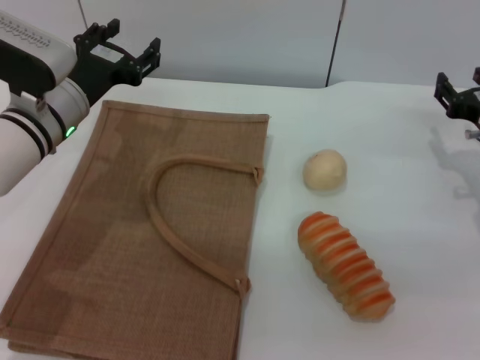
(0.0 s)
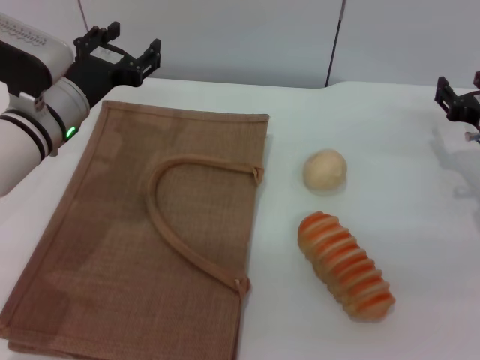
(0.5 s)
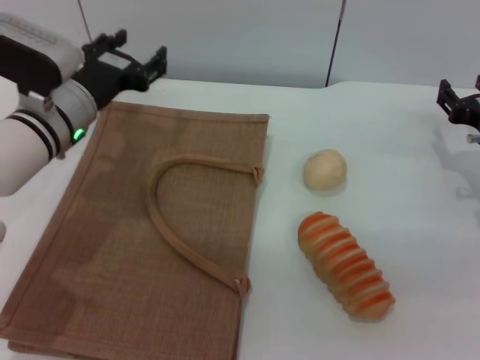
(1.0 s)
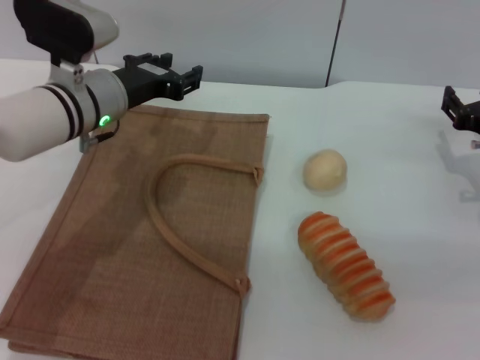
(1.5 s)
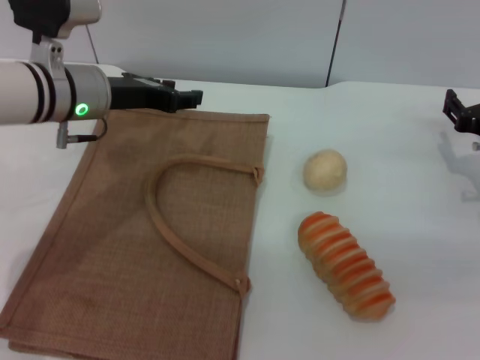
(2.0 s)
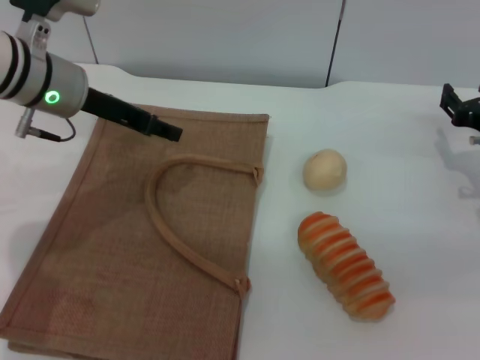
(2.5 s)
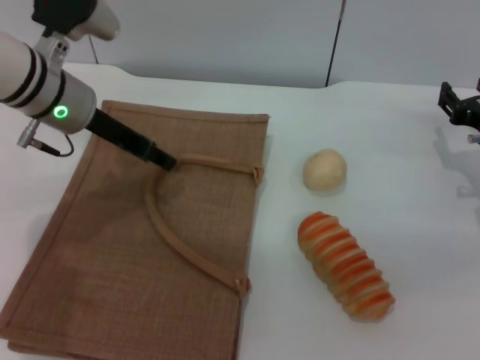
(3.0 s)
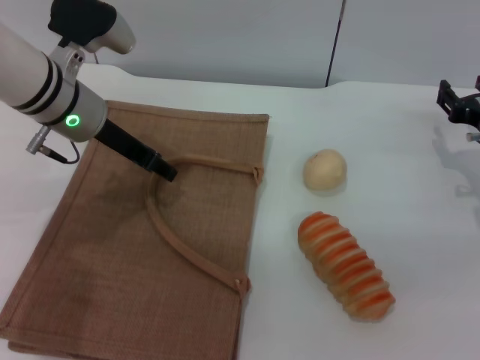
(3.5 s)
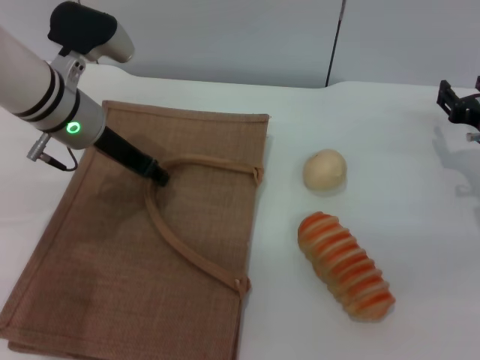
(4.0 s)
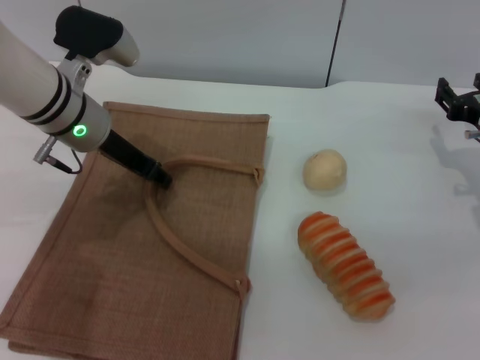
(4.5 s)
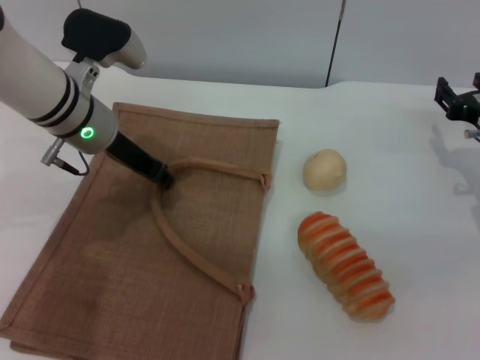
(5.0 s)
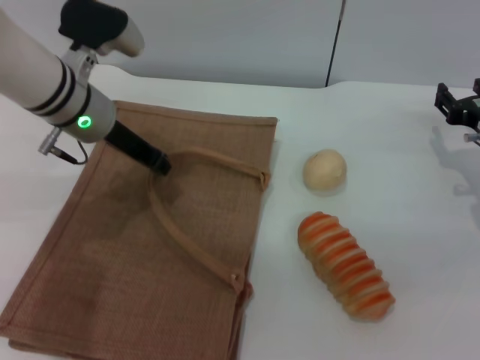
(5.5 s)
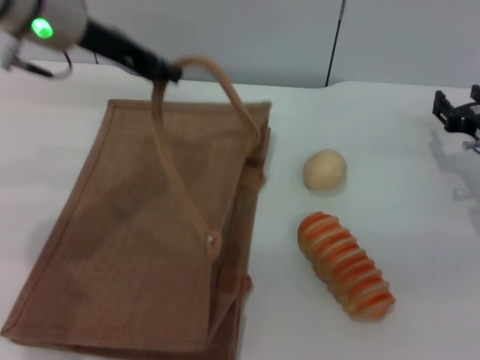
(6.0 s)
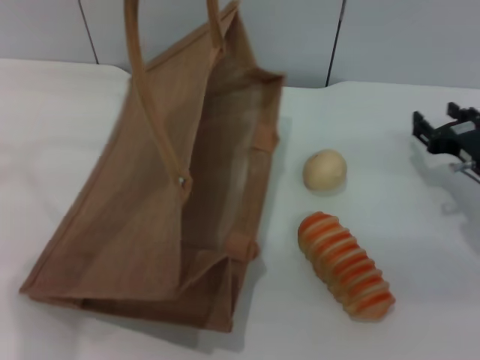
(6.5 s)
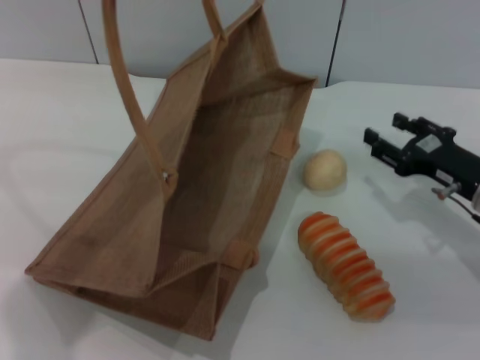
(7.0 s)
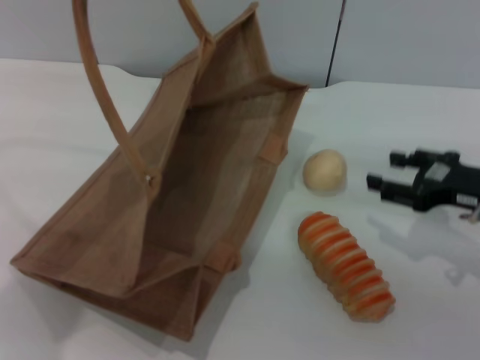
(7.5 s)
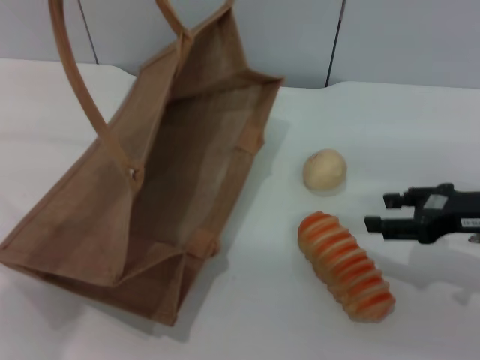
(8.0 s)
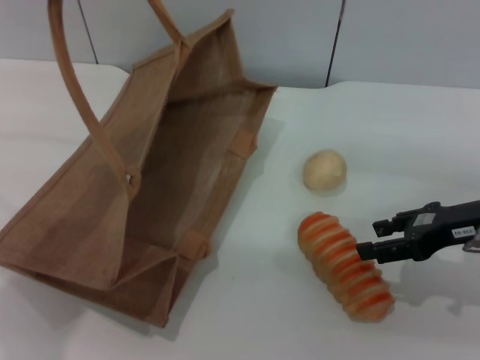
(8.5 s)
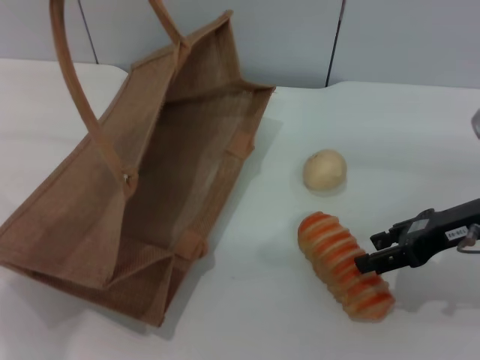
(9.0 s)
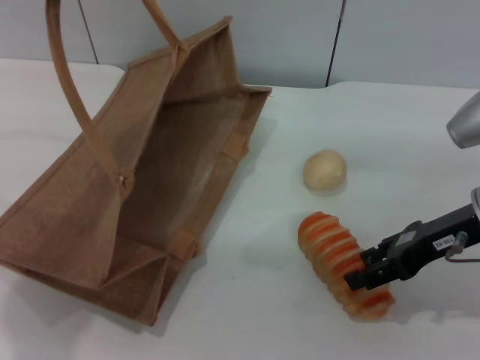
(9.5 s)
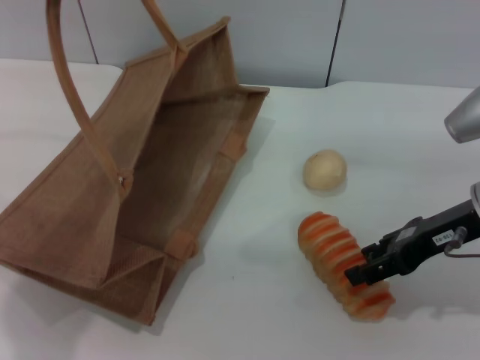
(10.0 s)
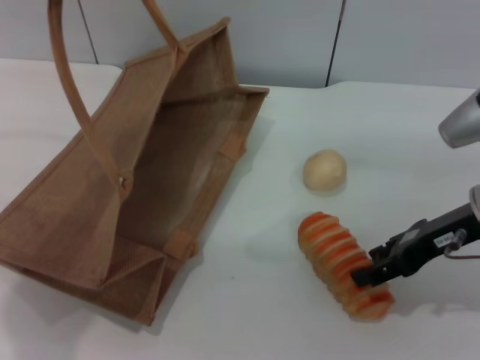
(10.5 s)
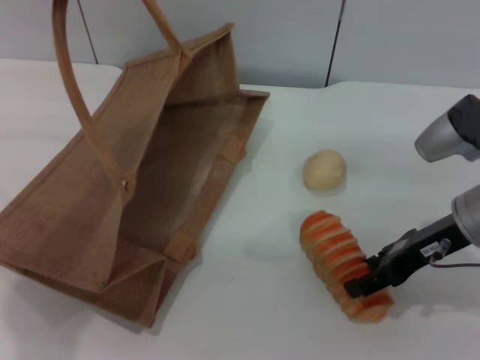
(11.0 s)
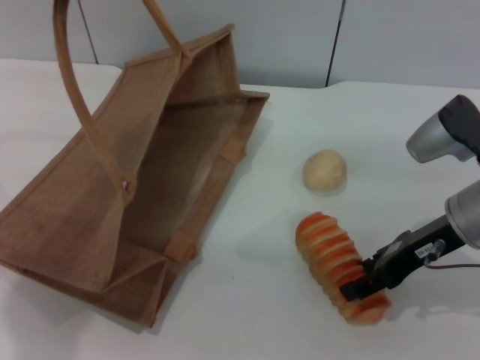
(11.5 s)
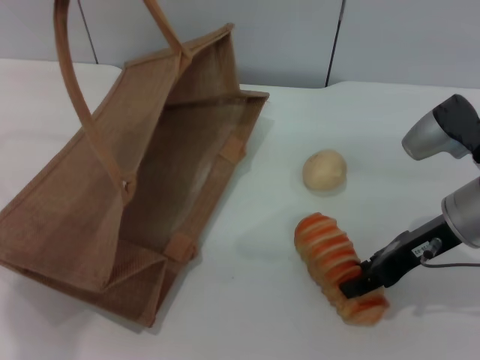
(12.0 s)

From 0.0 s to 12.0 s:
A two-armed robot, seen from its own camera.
Task of the whole recording: pick up the bread and egg yolk pastry from the table and place it in the brown handbag.
Step, from 0.0 s to 6.0 s: Lift the woven bag with the left gripper to open it.
From 4.0 s to 6.0 s: The left gripper heads upward, covering about 10 cm, and closes.
From 6.0 s to 8.0 s: The right gripper moves backward and upward, some 10 cm. Meanwhile the left gripper is displaced upward and backward by some 15 cm.
From 8.0 s to 10.0 s: The right gripper goes roughly 5 cm to the left.
From 10.0 s to 12.0 s: The grippers stay close to where they were, moving slightly.

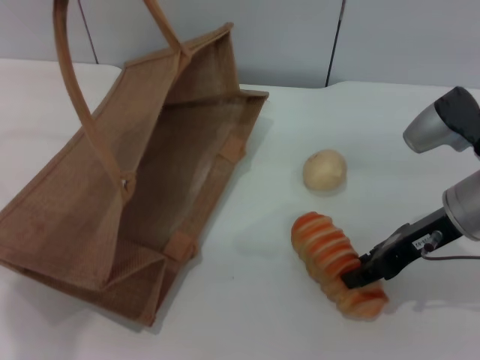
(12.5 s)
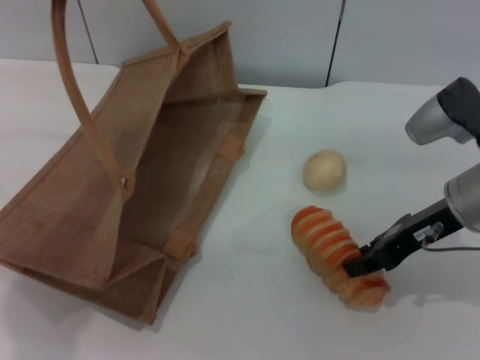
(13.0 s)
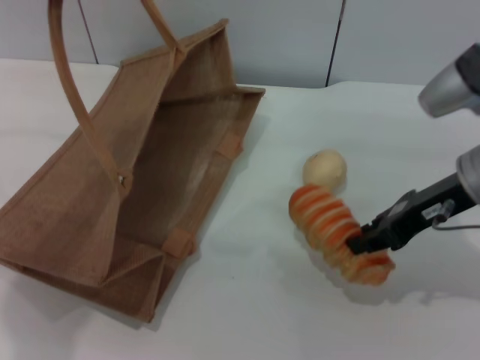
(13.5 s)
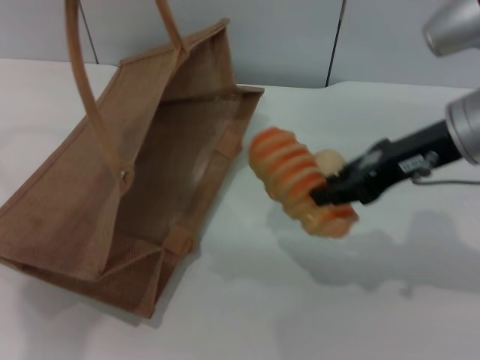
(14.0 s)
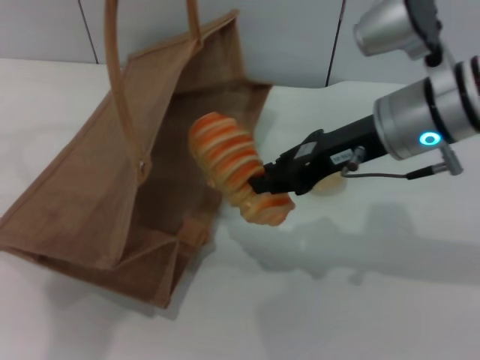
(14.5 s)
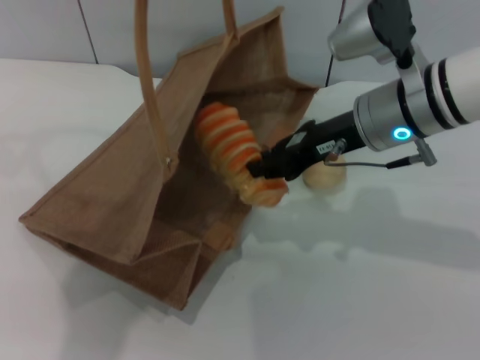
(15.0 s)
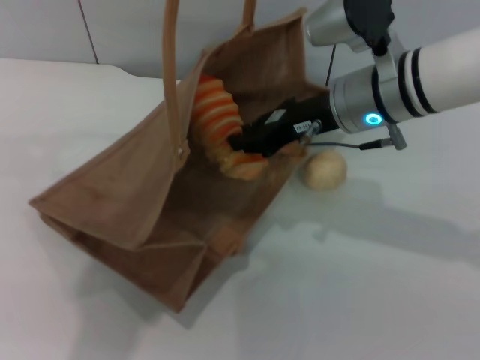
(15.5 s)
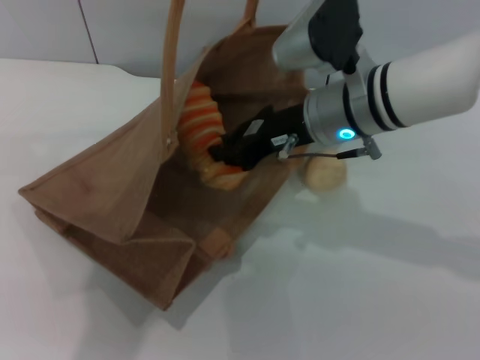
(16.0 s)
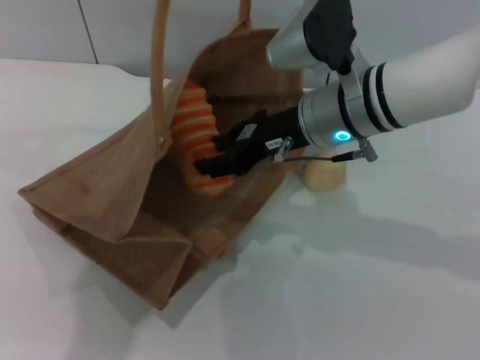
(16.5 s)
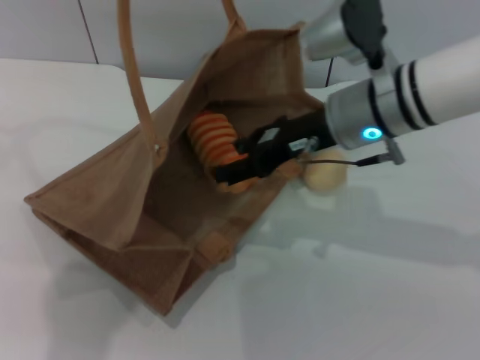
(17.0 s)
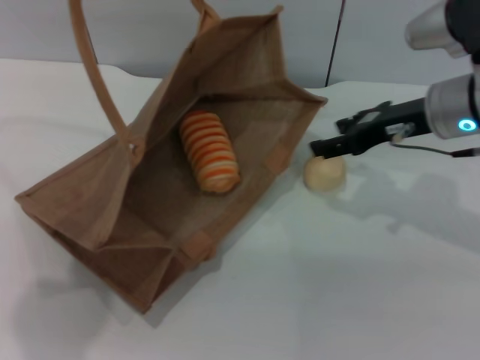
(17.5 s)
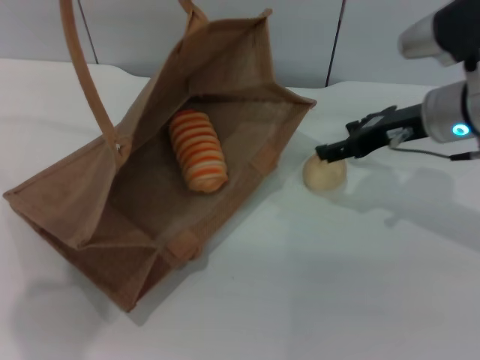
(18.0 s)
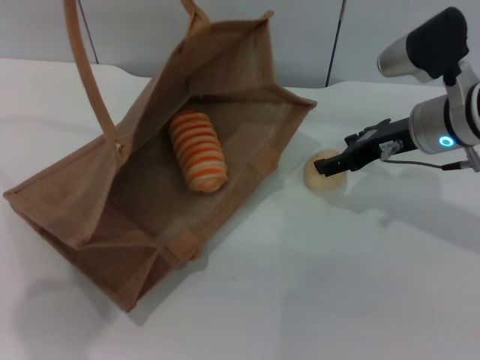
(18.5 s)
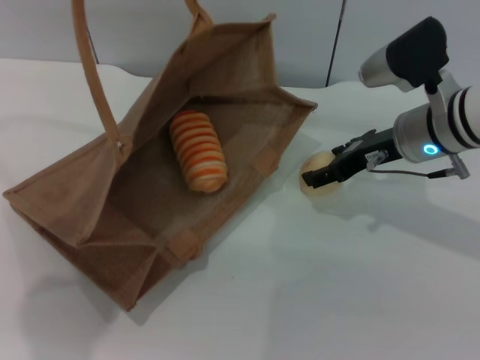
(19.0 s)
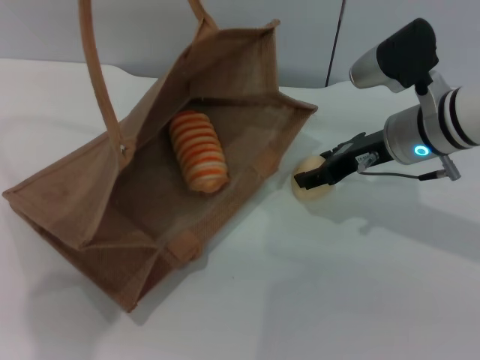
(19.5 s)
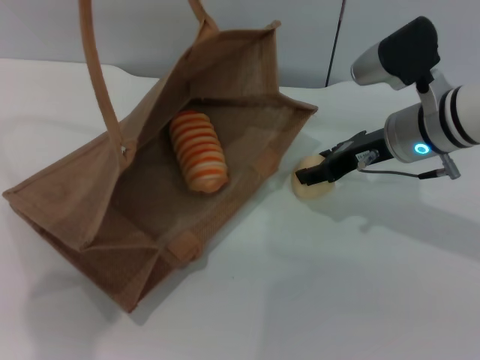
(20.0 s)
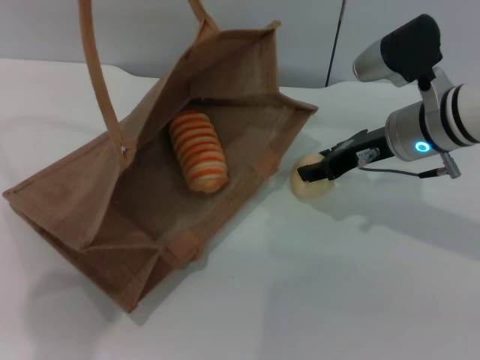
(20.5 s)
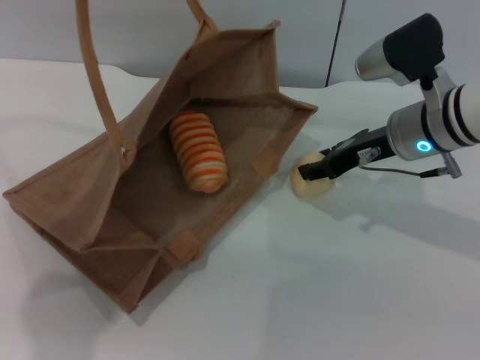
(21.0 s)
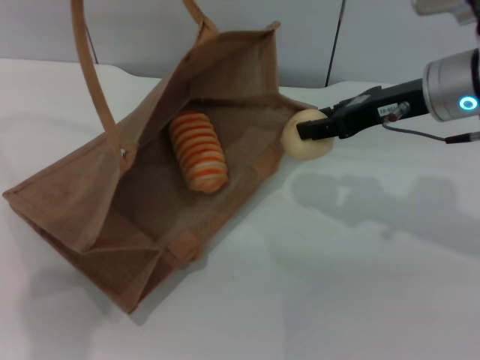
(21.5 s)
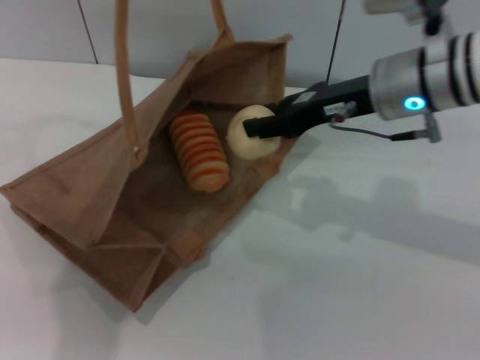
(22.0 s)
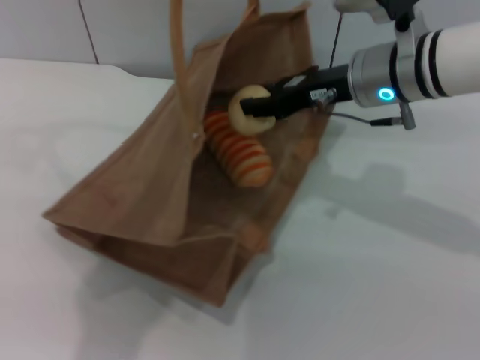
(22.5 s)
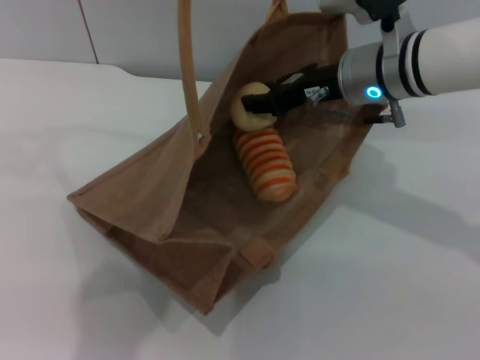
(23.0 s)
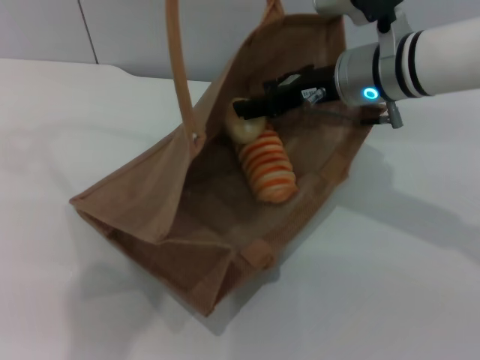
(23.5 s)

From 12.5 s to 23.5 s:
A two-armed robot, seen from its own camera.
Task of the whole recording: pick up the bread and egg yolk pastry from the table and place it in the brown handbag.
Step, from 14.0 s to 17.0 s: Place the bread into the woven bag with the right gripper.
Step, from 17.5 s to 21.0 s: Pick up the egg yolk pastry with the right gripper.
From 12.5 s to 14.5 s: The right gripper is displaced to the left and upward by roughly 10 cm, and closes.
From 14.5 s to 16.0 s: The right gripper shifts about 5 cm to the left. The left gripper moves to the right, about 5 cm.
From 16.0 s to 18.0 s: The left gripper travels to the left by some 10 cm. The right gripper is displaced to the right by approximately 10 cm, and opens up.
From 18.0 s to 20.0 s: The grippers make only small movements.
From 20.0 s to 21.5 s: The right gripper travels upward by approximately 5 cm.
From 21.5 s to 23.5 s: The left gripper moves to the right, about 5 cm; the right gripper moves to the left, roughly 5 cm.

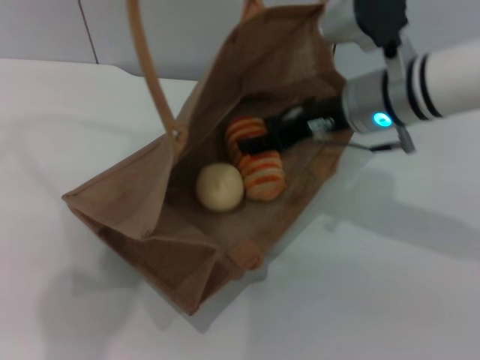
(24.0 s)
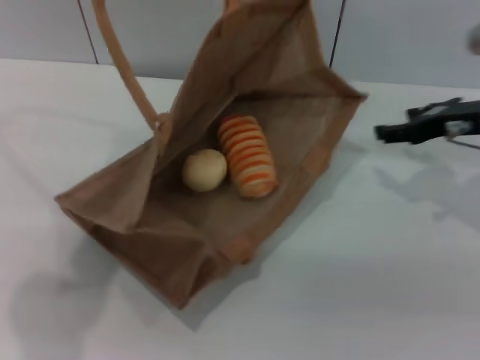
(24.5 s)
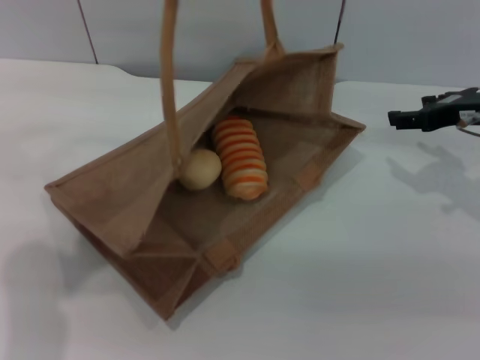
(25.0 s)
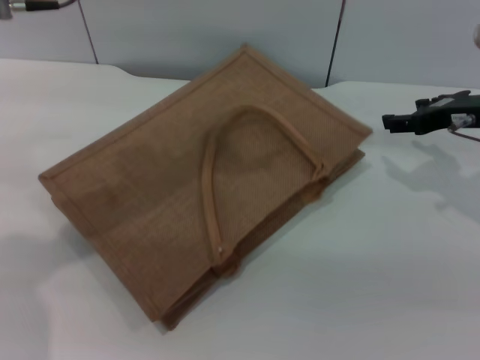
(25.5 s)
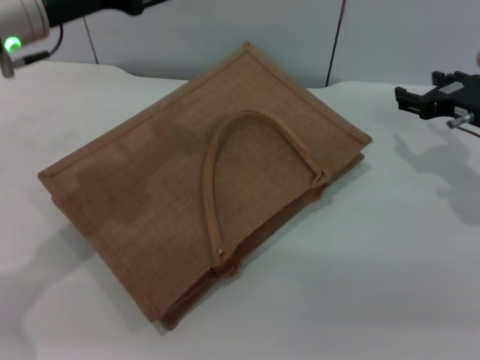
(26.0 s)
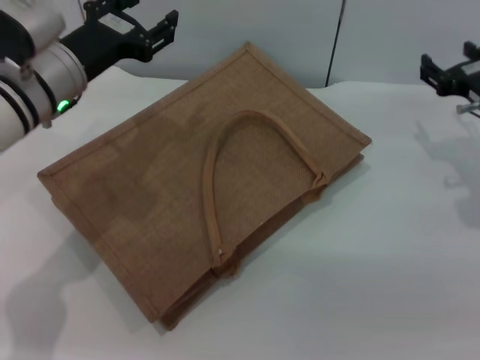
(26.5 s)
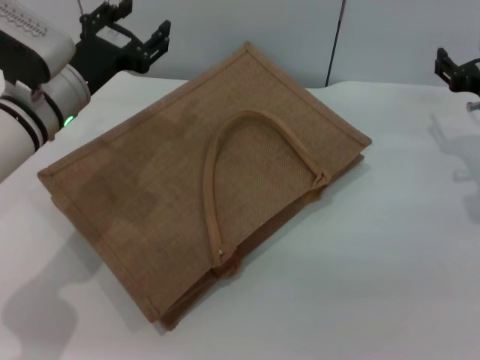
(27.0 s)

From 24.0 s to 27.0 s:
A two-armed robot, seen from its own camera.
Task of the whole recording: pick up the bread and egg yolk pastry from the table and place it in the brown handbag.
Step, from 24.5 s to 25.5 s: Lower the woven bag with the left gripper to close it.
From 24.0 s to 25.5 s: The right gripper heads to the right, covering some 15 cm. Meanwhile the left gripper shifts approximately 5 cm downward, and opens up.
From 25.5 s to 27.0 s: The left gripper goes roughly 15 cm downward. The right gripper changes place by some 5 cm.
